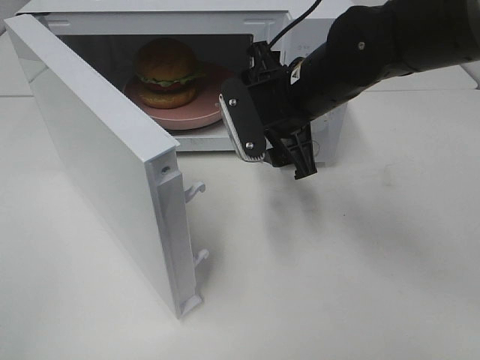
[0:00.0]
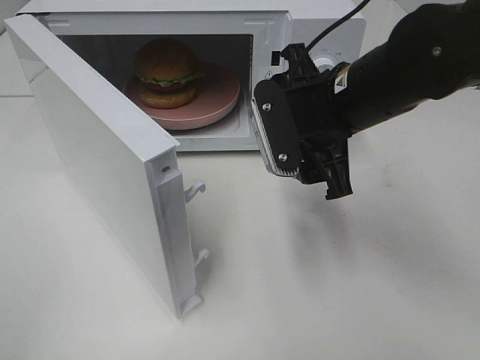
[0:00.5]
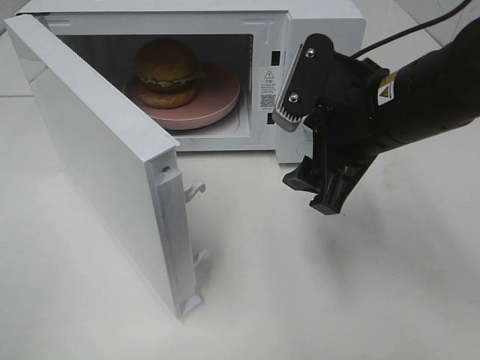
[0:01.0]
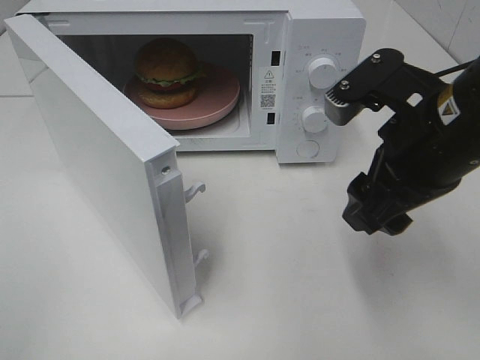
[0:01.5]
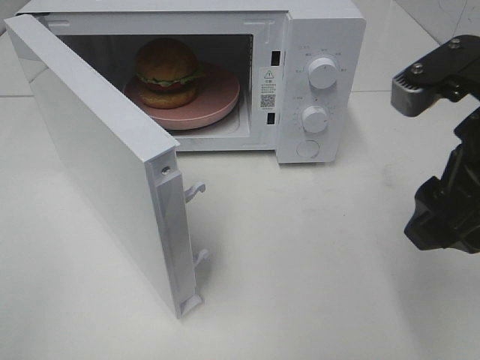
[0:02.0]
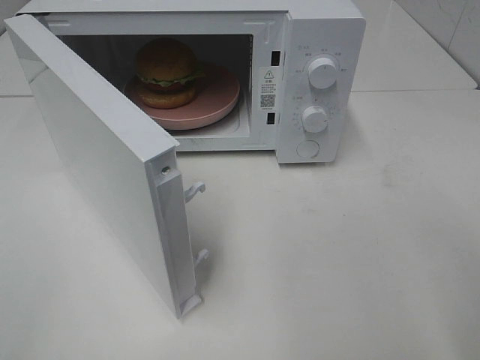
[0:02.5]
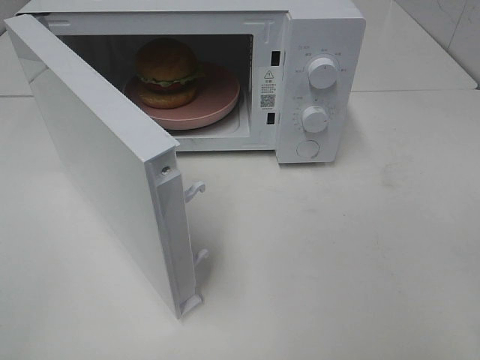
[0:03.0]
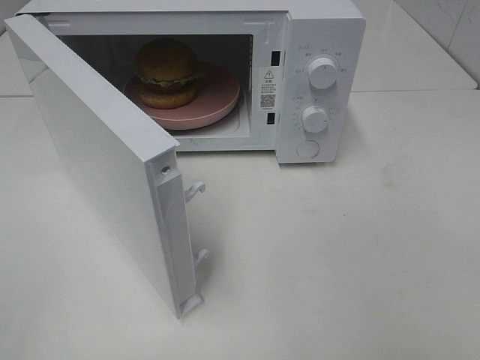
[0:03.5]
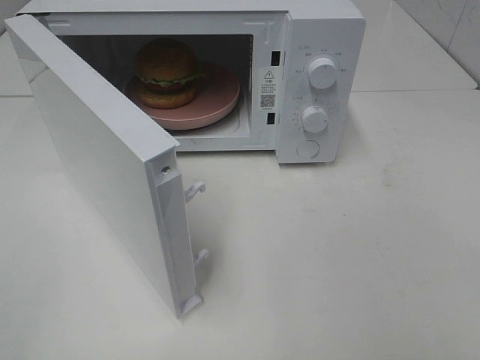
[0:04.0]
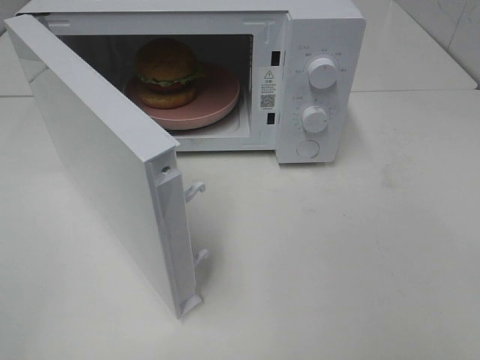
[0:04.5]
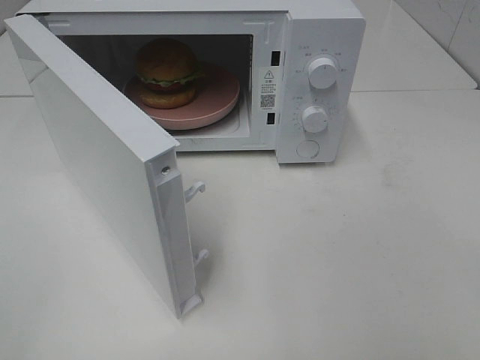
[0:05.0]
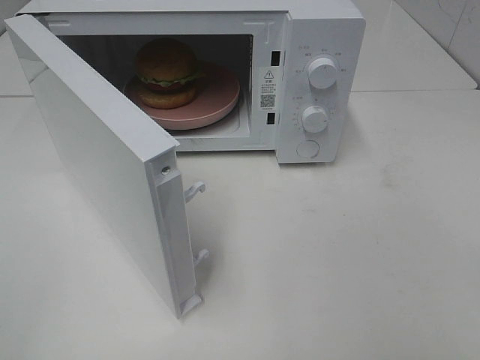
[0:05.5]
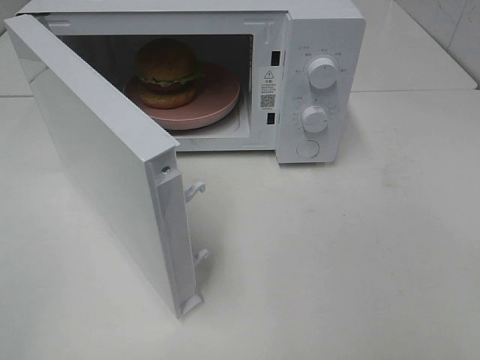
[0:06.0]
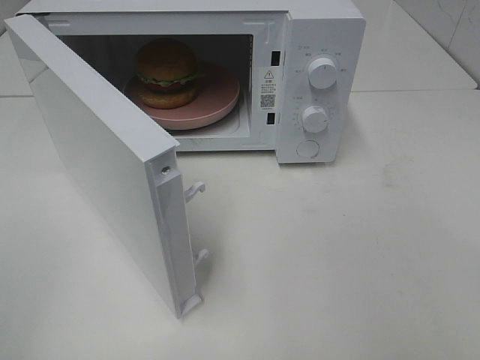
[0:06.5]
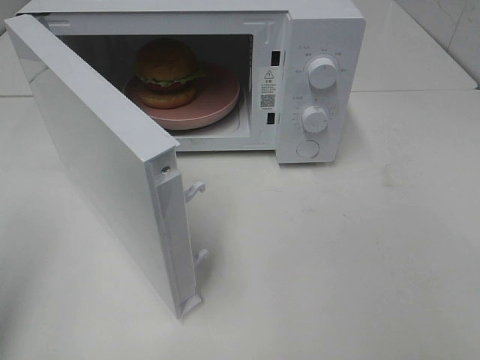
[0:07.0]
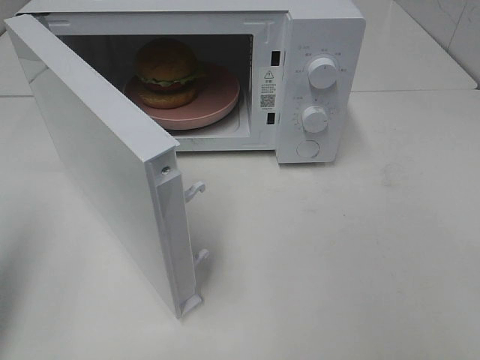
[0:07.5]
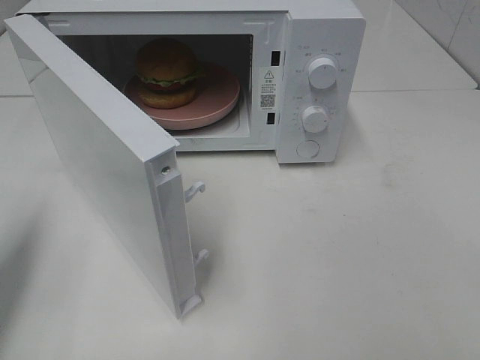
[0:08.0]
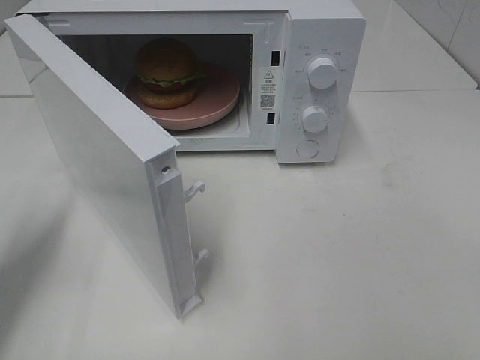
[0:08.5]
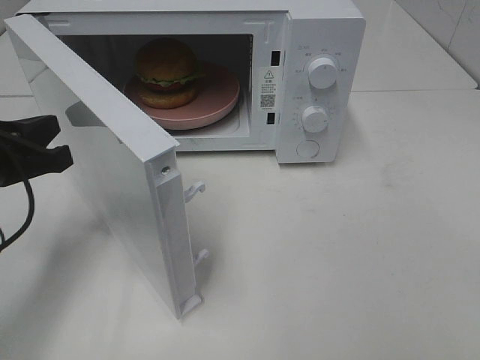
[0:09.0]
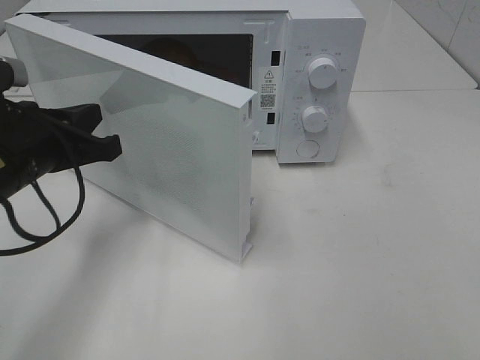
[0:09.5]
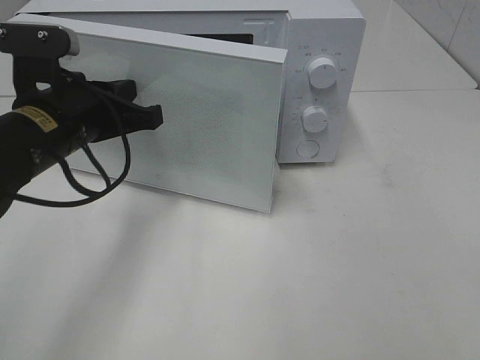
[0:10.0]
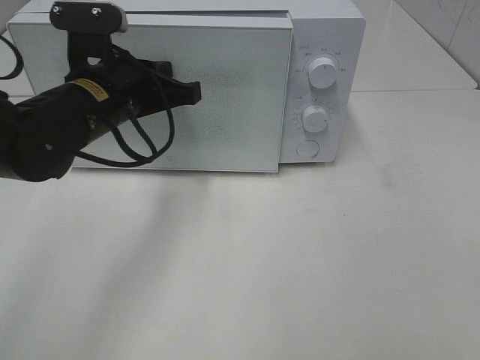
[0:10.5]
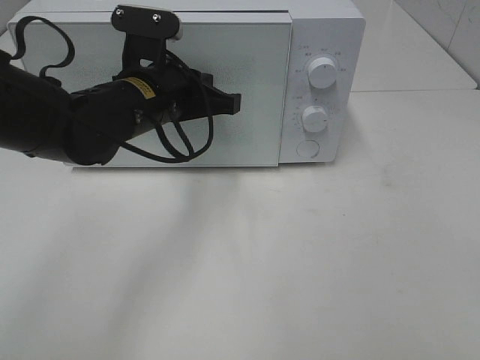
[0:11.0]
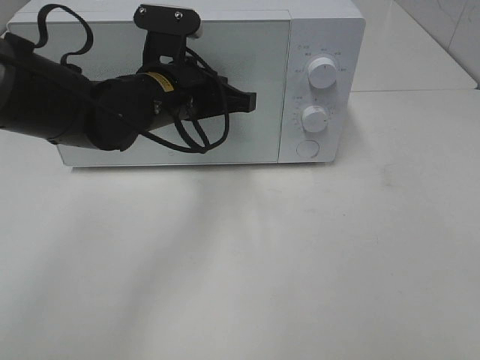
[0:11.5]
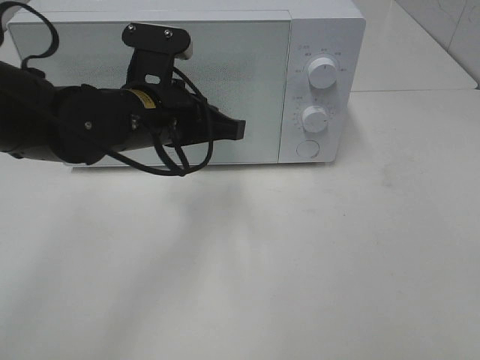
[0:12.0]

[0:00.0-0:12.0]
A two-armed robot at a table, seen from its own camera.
Task of the whole recording: Heat the burger.
Step, 0:00.0 to 0:11.5: Left hand: close the microwave door.
0:00.0 to 0:02.0: The right gripper travels backward, to the right and upward by roughly 20 cm.
0:02.0 to 0:04.0: The right gripper is displaced backward and to the right by roughly 20 cm.
0:04.0 to 0:06.0: The two grippers keep their place.
0:06.0 to 0:08.0: The left gripper travels forward by approximately 20 cm, and closes up.
0:08.0 to 0:10.0: The left gripper shifts some 20 cm to the right and forward.
0:10.0 to 0:12.0: The left gripper moves to the right, some 10 cm.

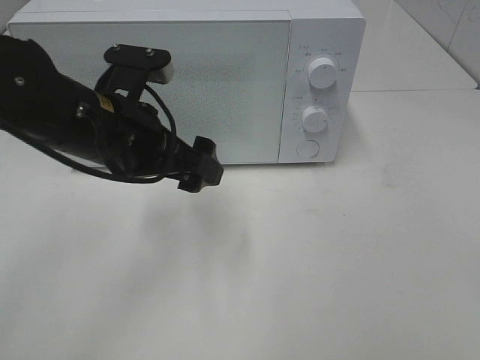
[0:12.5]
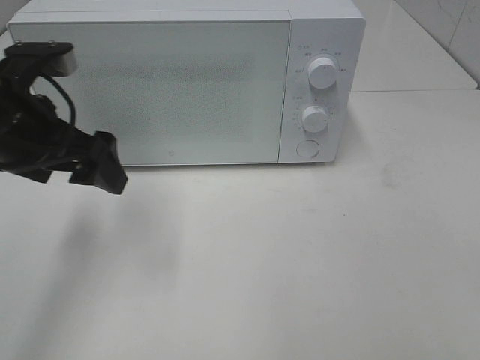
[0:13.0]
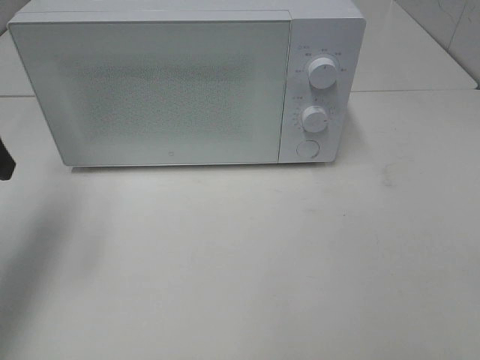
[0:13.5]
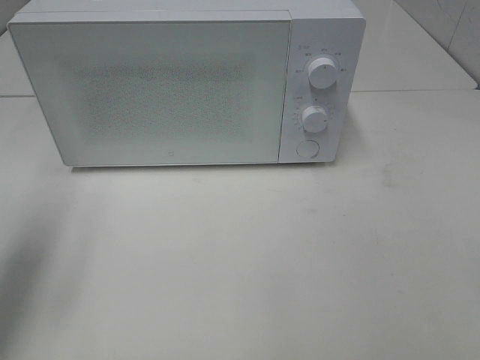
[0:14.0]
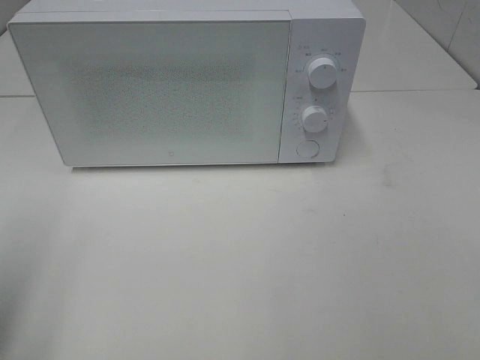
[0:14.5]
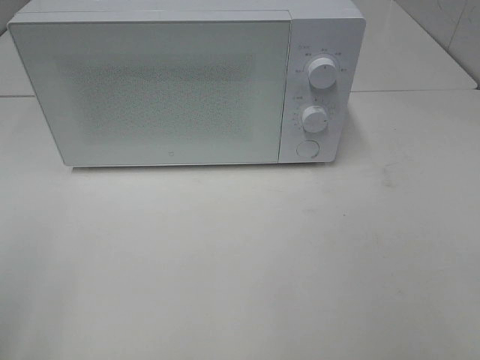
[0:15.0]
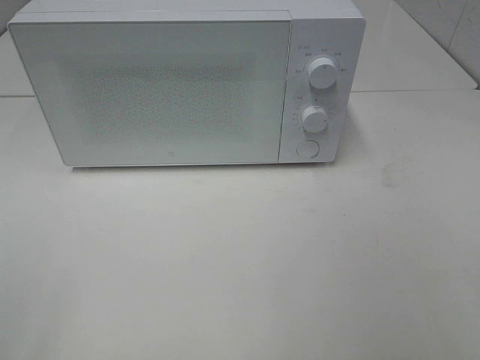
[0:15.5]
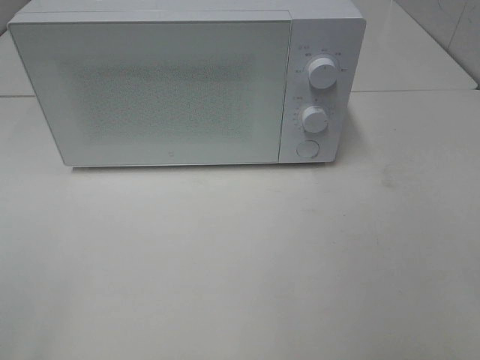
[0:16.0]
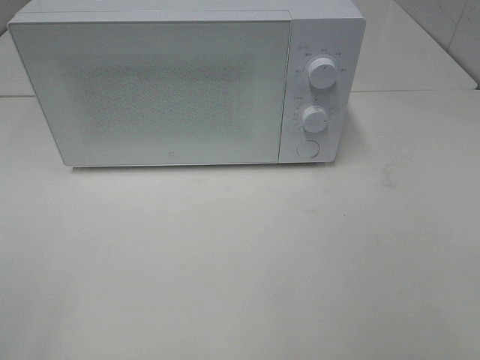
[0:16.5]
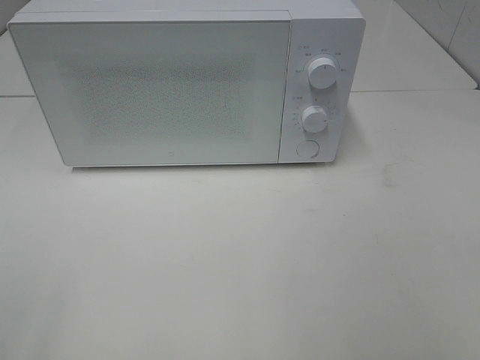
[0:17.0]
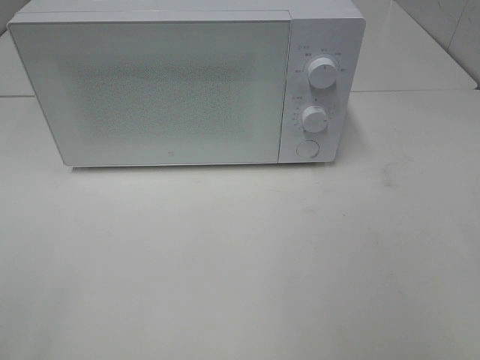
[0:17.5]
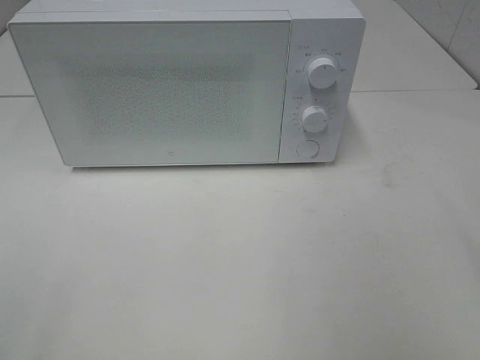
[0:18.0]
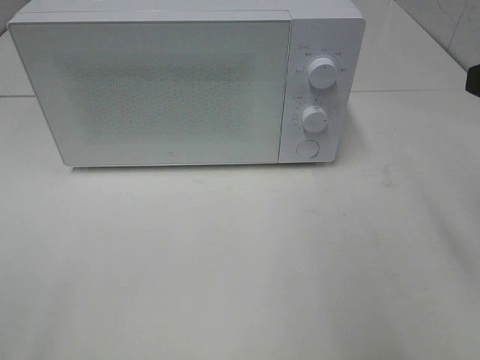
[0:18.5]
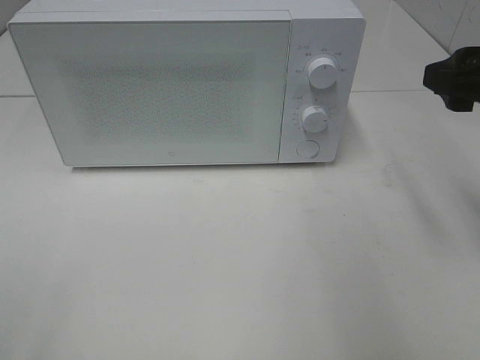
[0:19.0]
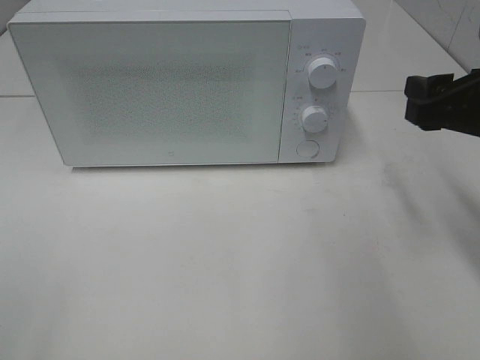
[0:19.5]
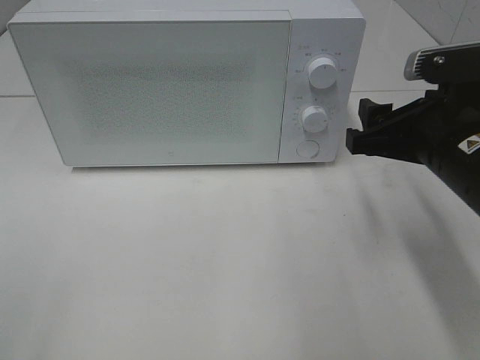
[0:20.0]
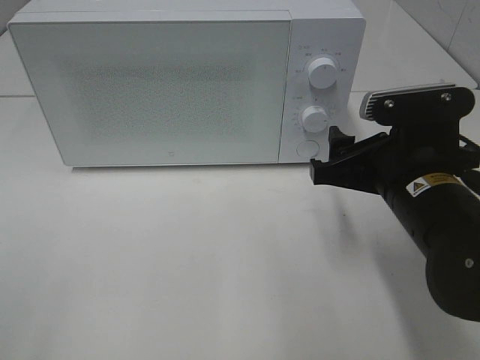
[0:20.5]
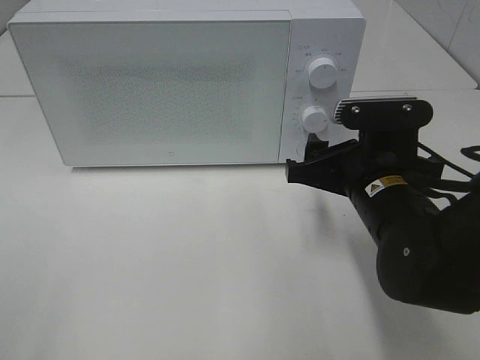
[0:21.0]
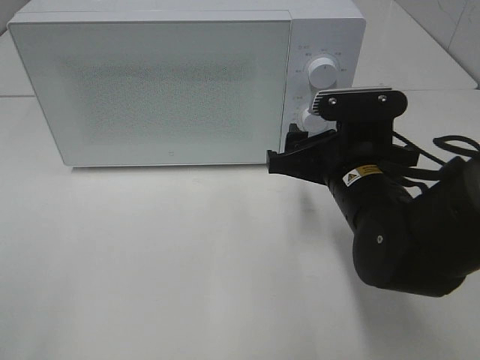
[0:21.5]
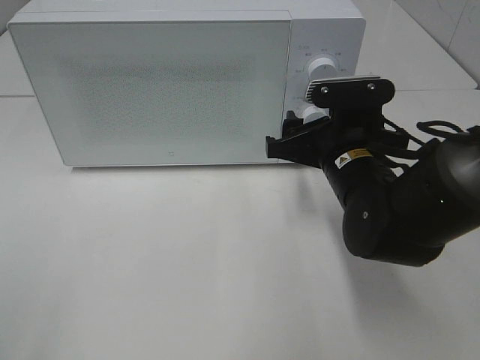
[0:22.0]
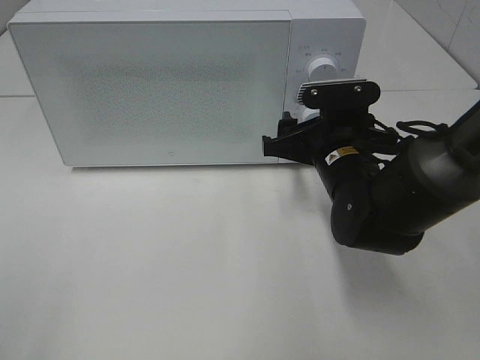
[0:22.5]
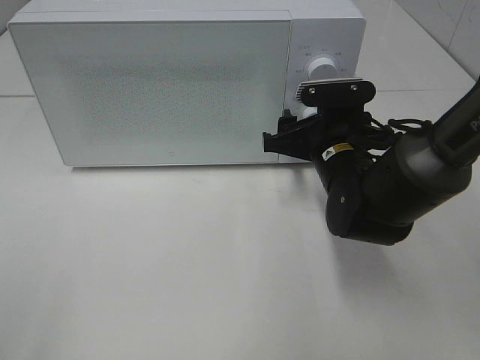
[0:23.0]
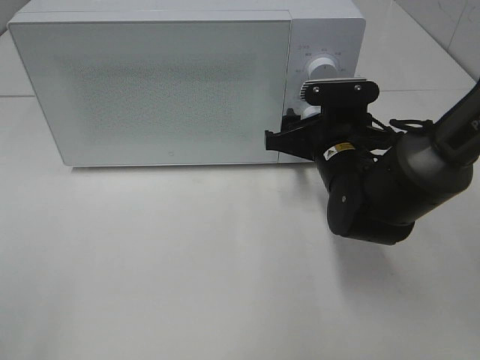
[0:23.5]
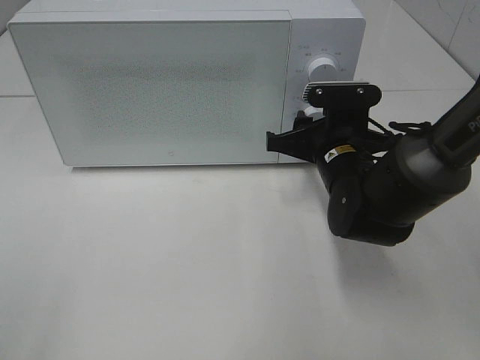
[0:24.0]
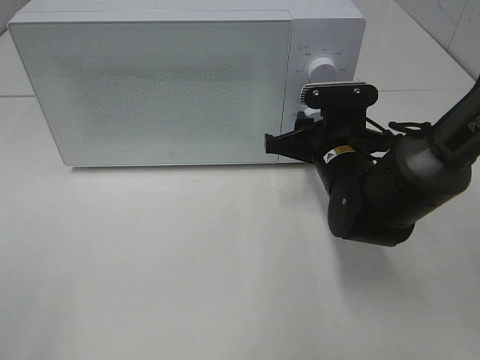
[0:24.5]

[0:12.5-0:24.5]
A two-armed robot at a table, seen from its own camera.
Task of the whole recording: Heat the burger.
0:12.5 to 0:14.5: The left gripper heads to the left and backward, covering about 25 cm.
0:14.5 to 0:16.5: The left gripper heads backward, covering about 10 cm.
0:18.5 to 0:20.5: The right gripper heads downward and to the left, covering about 15 cm.
0:20.5 to 0:22.5: The right gripper travels forward by some 10 cm.
0:22.5 to 0:24.5: The right gripper closes up.

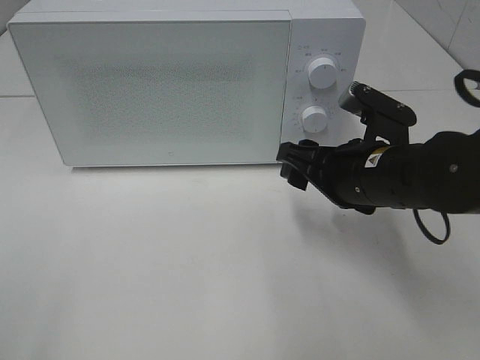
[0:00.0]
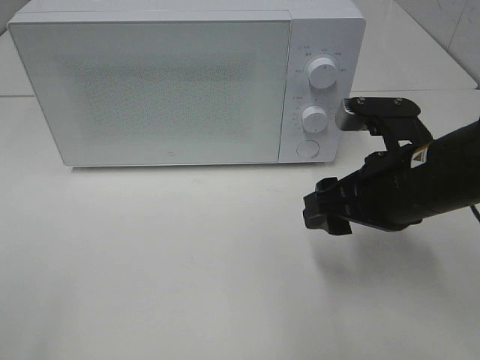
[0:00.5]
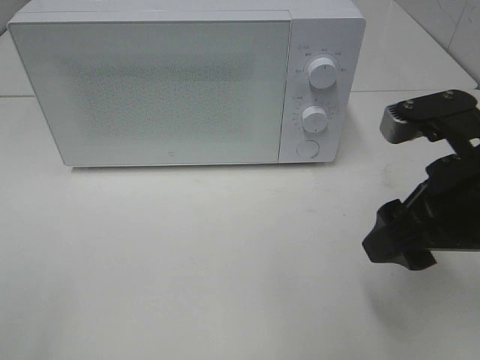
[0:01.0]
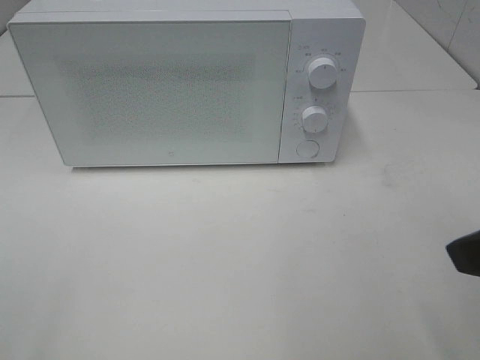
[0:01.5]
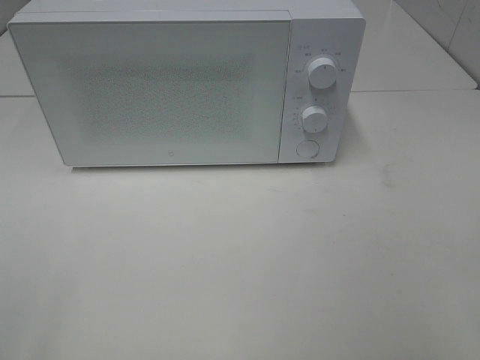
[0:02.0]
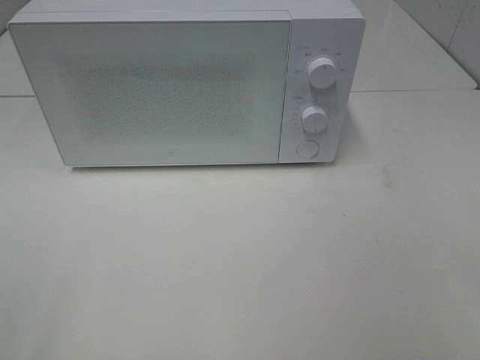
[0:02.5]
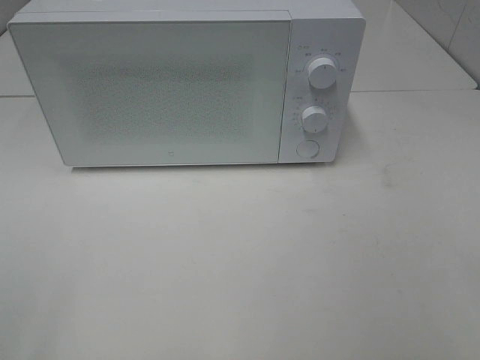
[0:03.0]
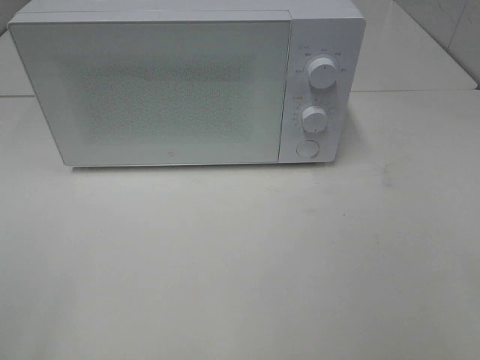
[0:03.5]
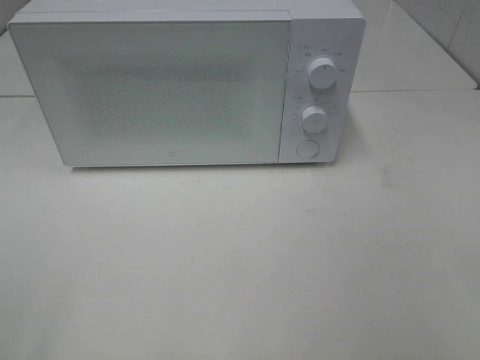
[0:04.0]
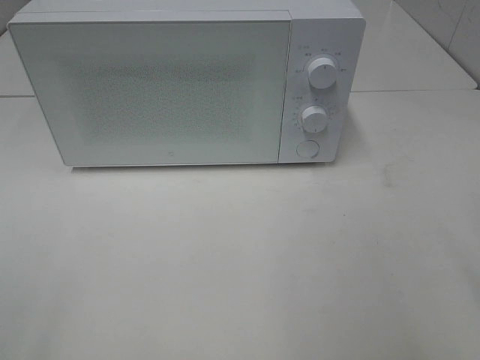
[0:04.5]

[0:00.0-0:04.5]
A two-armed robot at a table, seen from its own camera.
Task of the whole recording: Heat the burger.
0:00.0 to 0:02.0: The right gripper shifts some 30 cm backward, upward and to the right.
